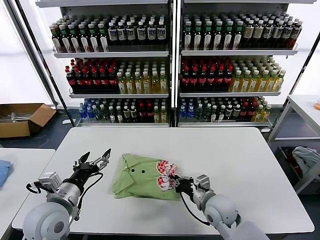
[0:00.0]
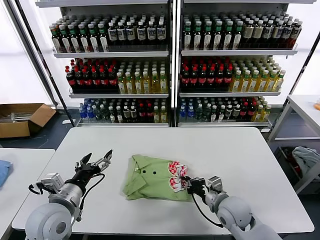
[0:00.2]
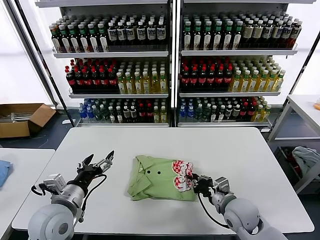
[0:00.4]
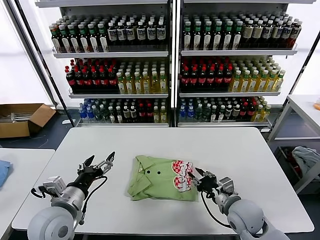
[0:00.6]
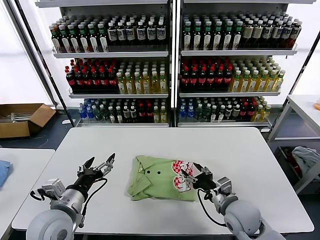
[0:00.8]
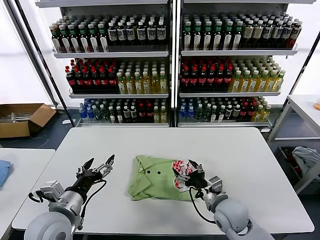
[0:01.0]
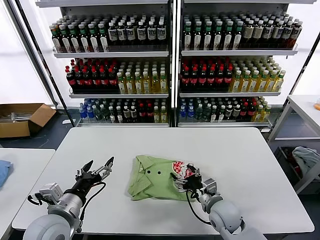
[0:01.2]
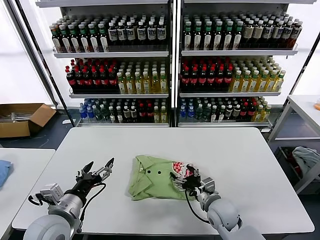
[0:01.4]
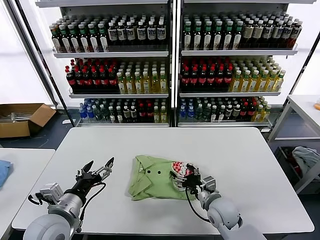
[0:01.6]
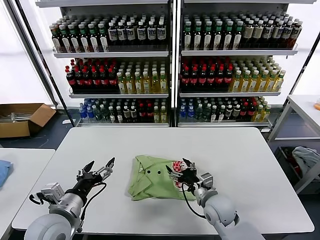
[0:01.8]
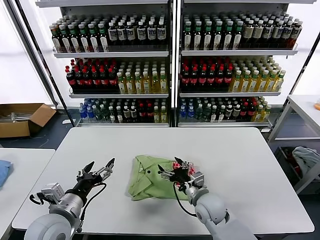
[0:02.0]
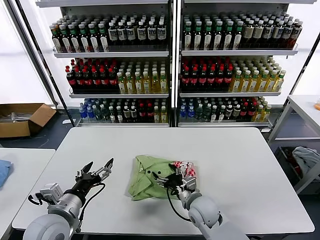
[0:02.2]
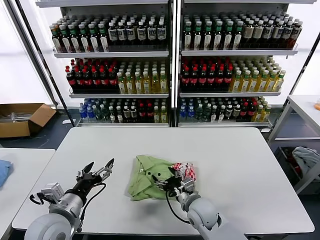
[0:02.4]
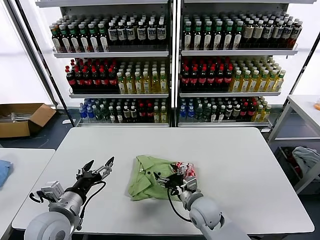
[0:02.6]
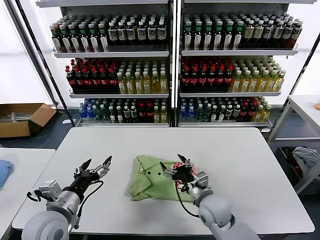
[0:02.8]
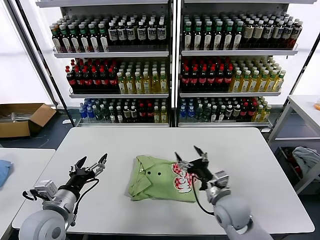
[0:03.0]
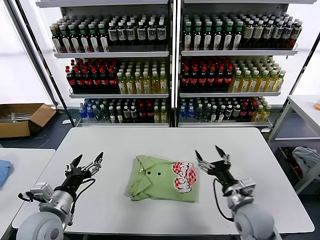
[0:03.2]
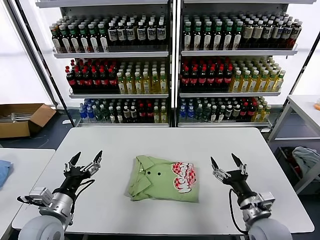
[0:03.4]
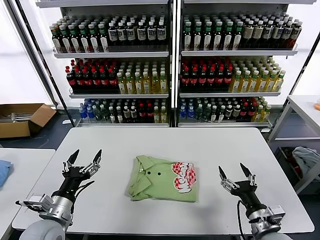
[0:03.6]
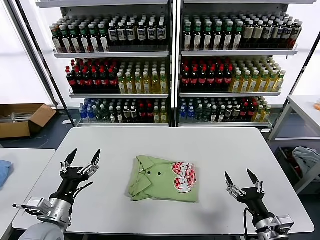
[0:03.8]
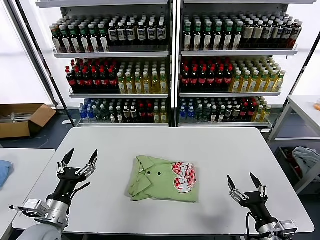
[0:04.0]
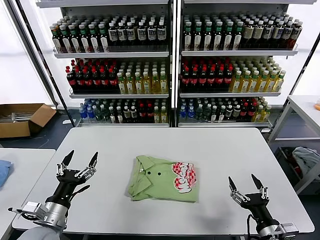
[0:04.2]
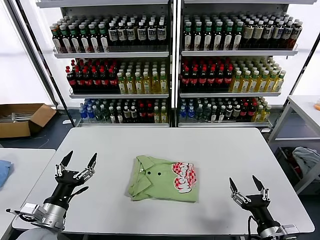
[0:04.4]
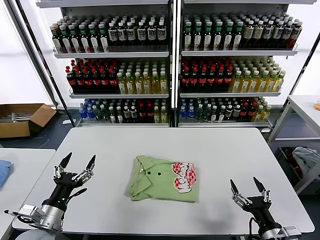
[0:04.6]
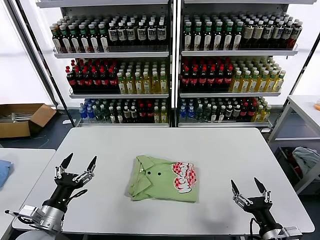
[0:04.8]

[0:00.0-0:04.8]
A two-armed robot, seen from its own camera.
Task of the whole recording: fold and organize the clothes.
Step, 0:00.0 to 0:02.6: Drag the clothes to the center of the table.
0:00.0 to 0:01.6: The right gripper opens up.
0:01.6 to 0:03.2: The right gripper goes some 5 cm upward.
0:03.2 to 0:04.8: The right gripper travels backward and to the right by about 15 cm. The left gripper changes place by approximately 5 cm.

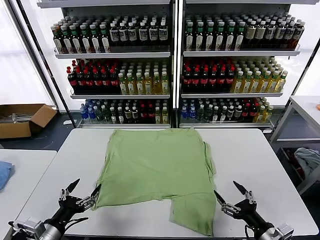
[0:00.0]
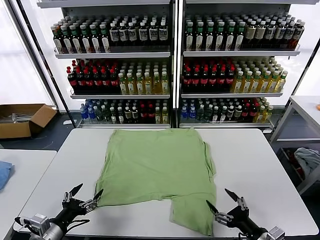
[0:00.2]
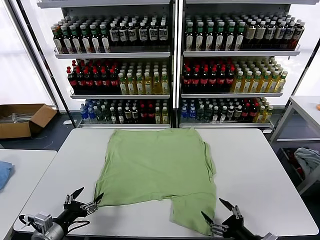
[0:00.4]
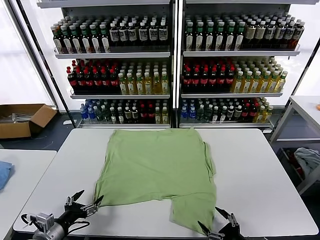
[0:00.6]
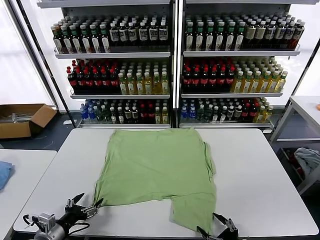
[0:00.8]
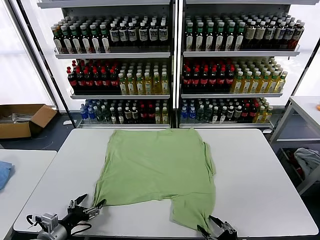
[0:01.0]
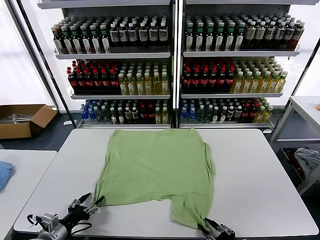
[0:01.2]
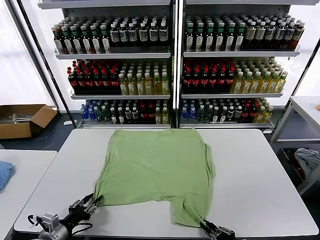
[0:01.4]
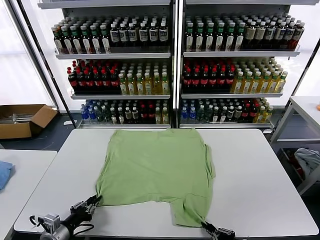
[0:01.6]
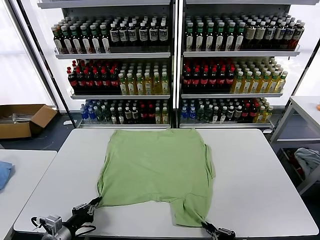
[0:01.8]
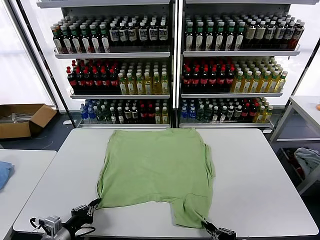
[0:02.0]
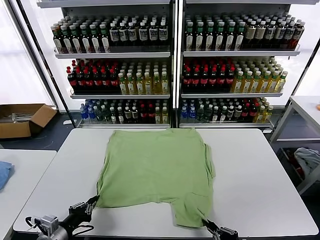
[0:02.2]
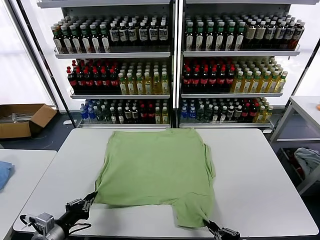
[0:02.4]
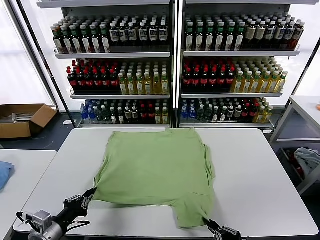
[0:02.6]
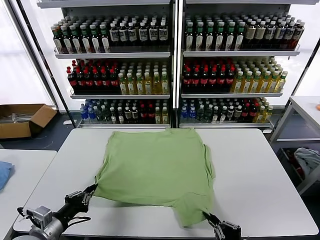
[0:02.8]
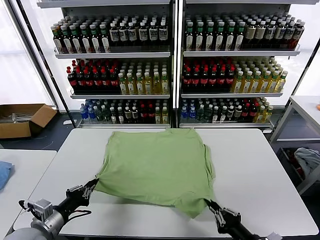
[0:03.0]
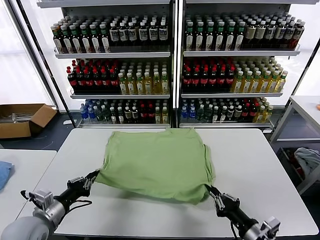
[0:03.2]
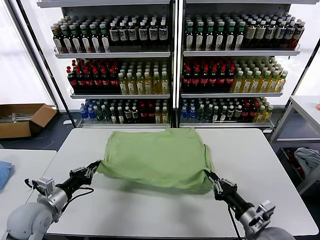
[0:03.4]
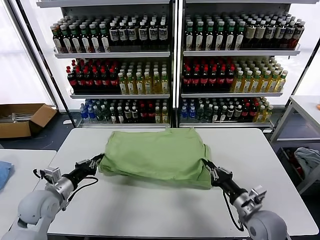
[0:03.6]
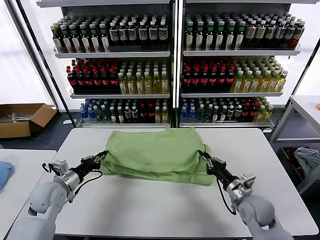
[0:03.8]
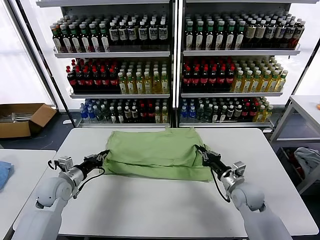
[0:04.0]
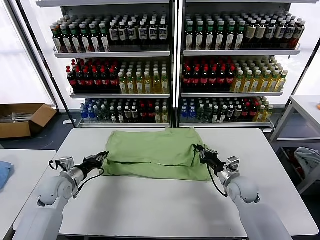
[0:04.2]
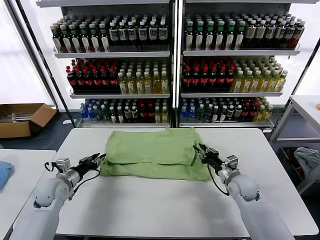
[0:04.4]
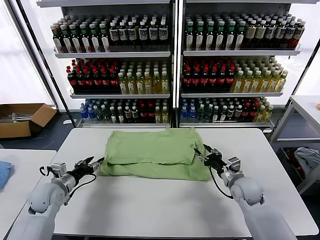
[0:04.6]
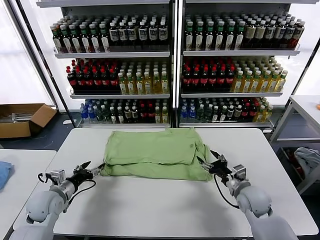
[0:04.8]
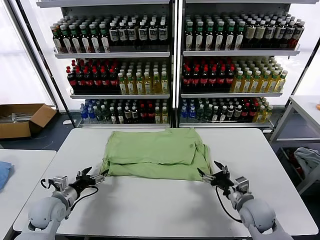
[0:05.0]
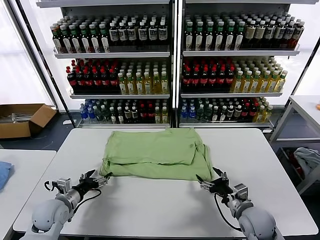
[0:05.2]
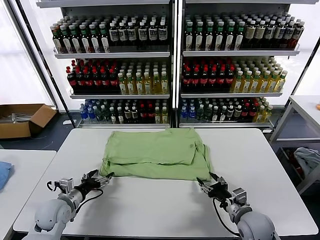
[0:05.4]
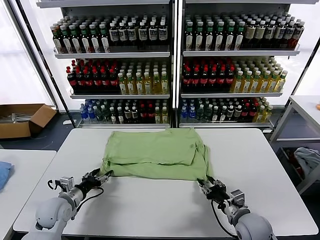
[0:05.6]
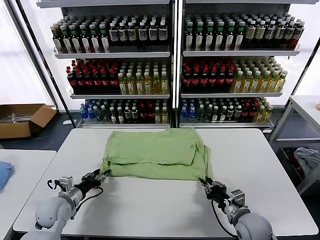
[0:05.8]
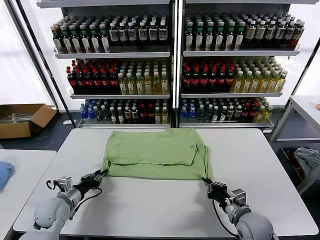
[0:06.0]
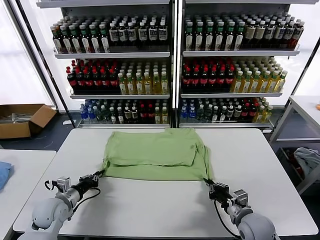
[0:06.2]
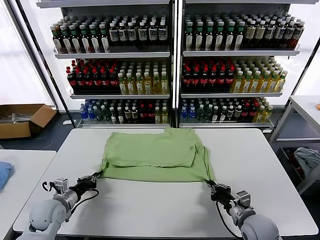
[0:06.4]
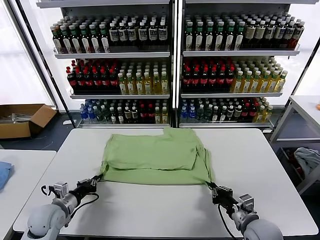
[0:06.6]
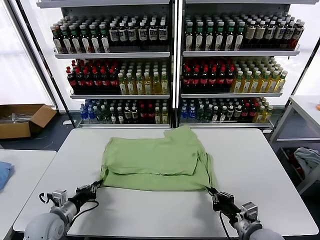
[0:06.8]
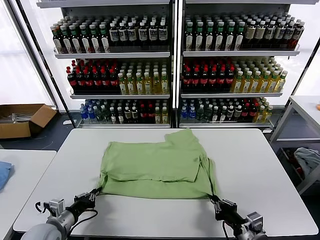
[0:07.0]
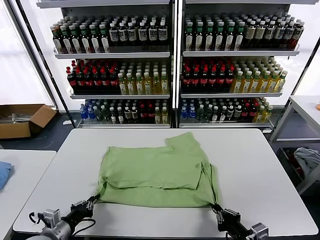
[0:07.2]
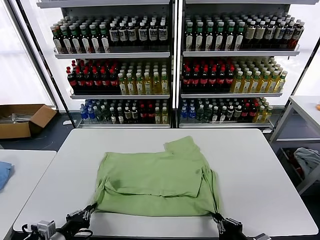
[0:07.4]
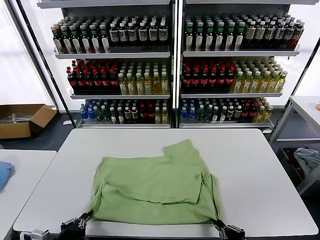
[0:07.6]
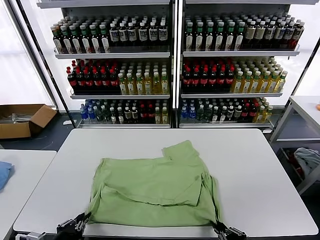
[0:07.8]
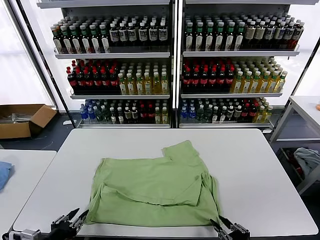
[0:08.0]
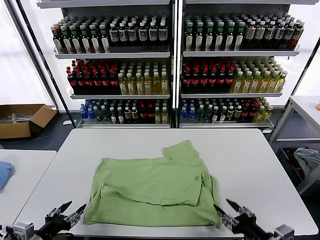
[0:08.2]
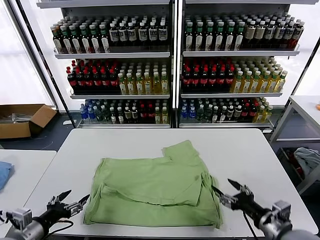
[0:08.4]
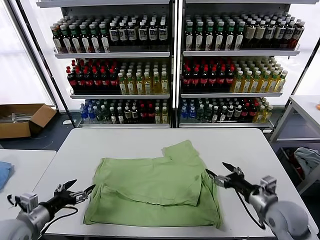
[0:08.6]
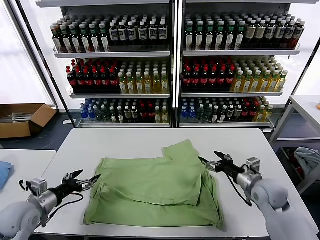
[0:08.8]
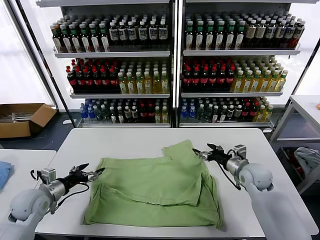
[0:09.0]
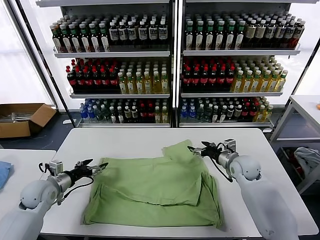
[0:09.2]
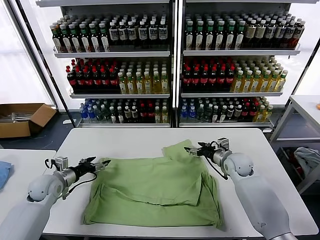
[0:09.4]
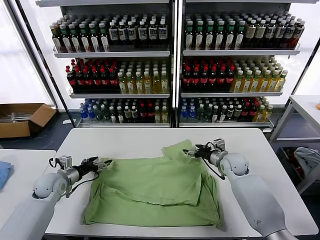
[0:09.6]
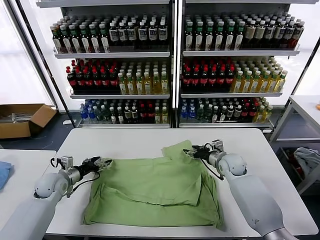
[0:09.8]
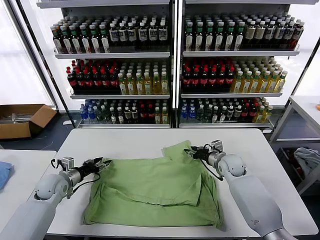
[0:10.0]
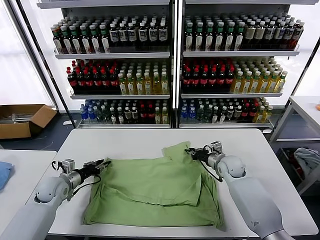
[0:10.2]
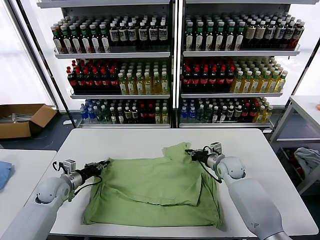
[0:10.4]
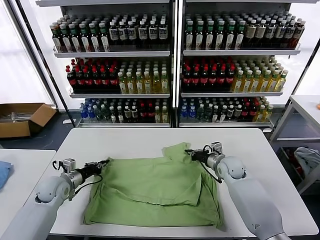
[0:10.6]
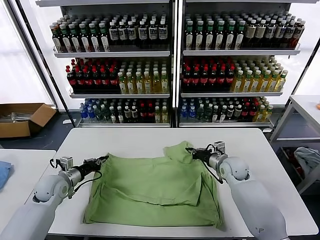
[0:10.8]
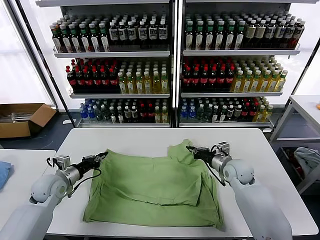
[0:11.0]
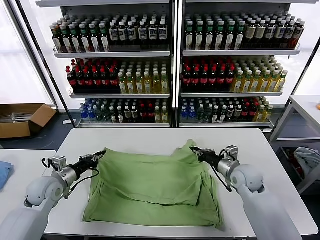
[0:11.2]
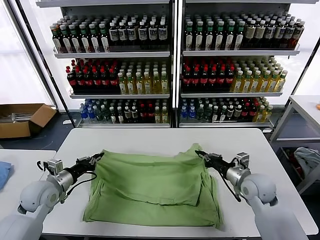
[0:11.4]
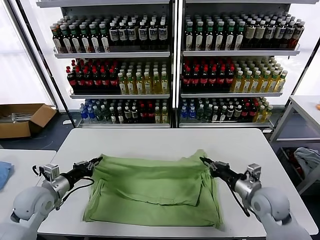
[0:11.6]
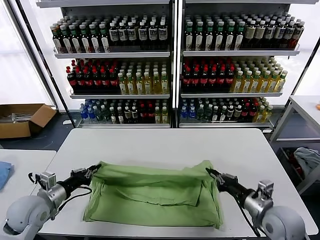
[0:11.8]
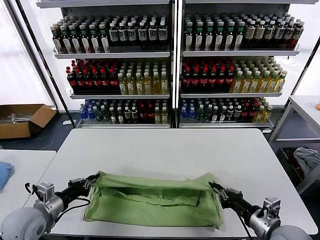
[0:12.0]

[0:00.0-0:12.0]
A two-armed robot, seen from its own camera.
Task of the whole recording: fold and organize the clothes.
Step, 0:00.0 to 0:01.6: use both grippers simultaneously to clamp the lower edge of the clothing fabric.
Step, 0:02.0 to 0:04.4: use both grippers to drag the lower edge of the fabric forward and fold it over the upper edge.
Step, 0:04.8 to 0:08.0: Drag the clothes downward with both gripper.
Step, 0:08.2 to 0:10.4: use both grippers simultaneously to clamp the upper edge of the clothing fabric.
0:01.6 to 0:03.0: The right gripper goes some 5 cm upward. The left gripper heads upward, covering approximately 10 cm.
0:03.0 to 0:04.4: Both grippers travel together forward, approximately 20 cm. The right gripper opens up.
0:04.4 to 0:06.0: The left gripper travels backward by some 5 cm, and opens, then closes once more. Meanwhile the right gripper shifts approximately 10 cm backward, and closes its fingers.
0:06.0 to 0:07.6: Both grippers travel together backward, approximately 20 cm.
0:07.6 to 0:09.0: The left gripper goes approximately 20 cm forward and to the left, and opens its fingers, while the right gripper goes roughly 35 cm forward, and opens its fingers.
0:09.0 to 0:10.4: The right gripper shifts by approximately 5 cm, and closes its fingers. Meanwhile the left gripper goes some 10 cm forward and downward, and closes its fingers.
0:10.4 to 0:12.0: The left gripper heads backward and upward, covering some 15 cm. The right gripper goes about 30 cm backward.

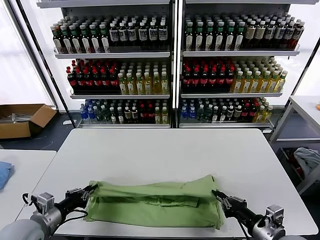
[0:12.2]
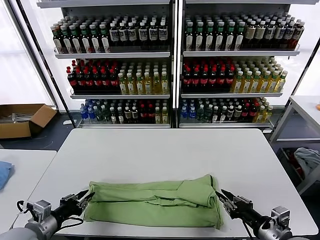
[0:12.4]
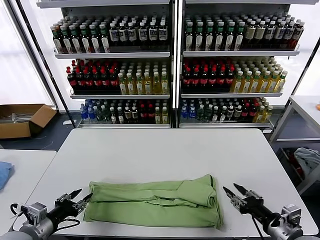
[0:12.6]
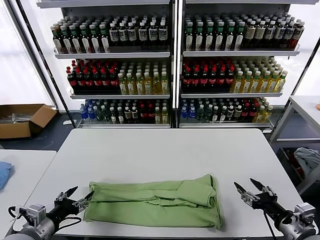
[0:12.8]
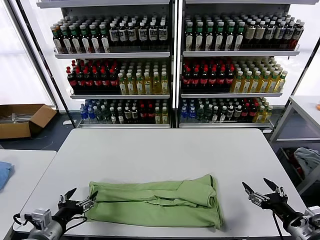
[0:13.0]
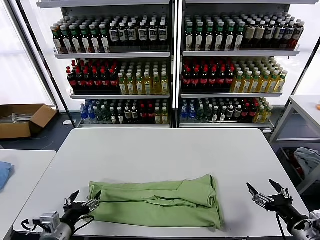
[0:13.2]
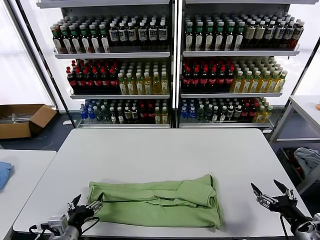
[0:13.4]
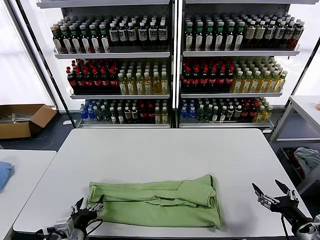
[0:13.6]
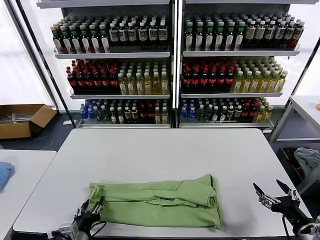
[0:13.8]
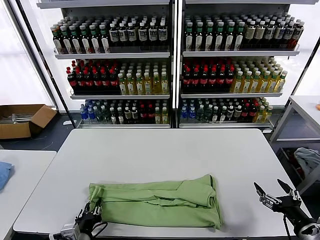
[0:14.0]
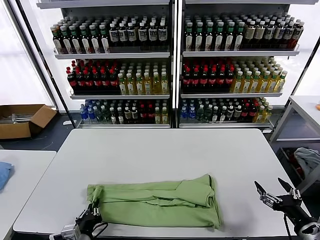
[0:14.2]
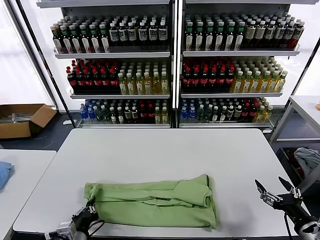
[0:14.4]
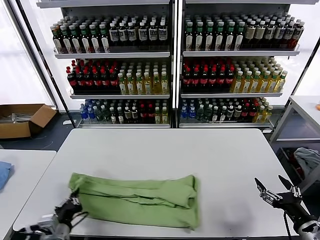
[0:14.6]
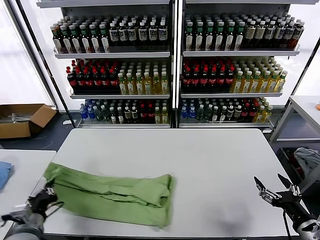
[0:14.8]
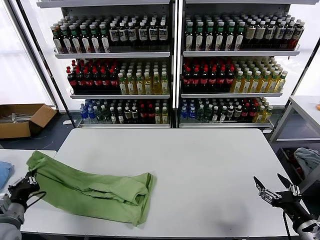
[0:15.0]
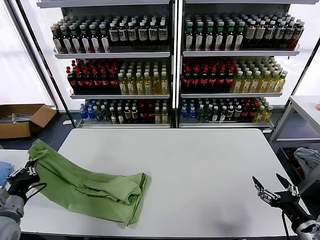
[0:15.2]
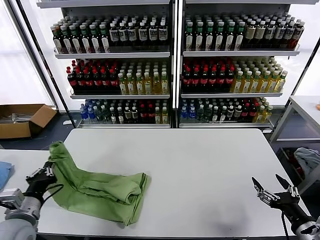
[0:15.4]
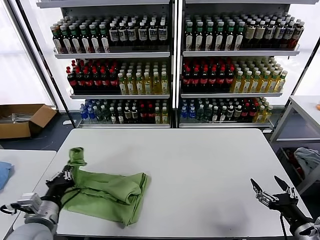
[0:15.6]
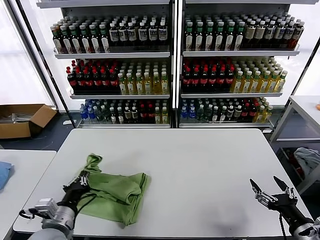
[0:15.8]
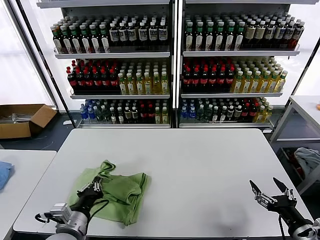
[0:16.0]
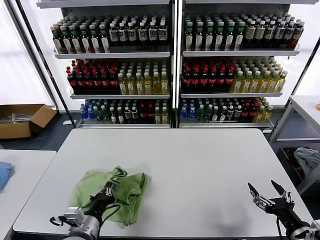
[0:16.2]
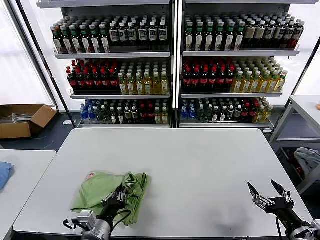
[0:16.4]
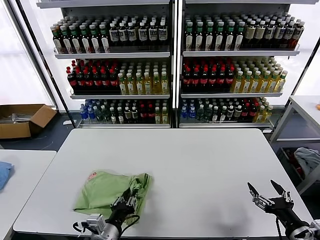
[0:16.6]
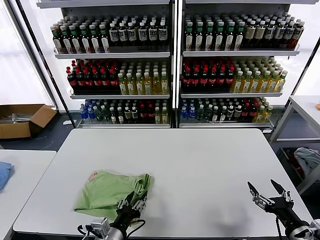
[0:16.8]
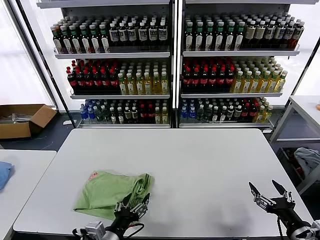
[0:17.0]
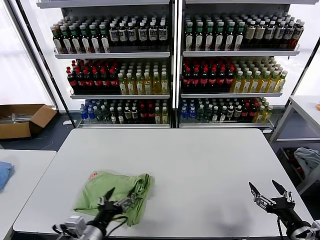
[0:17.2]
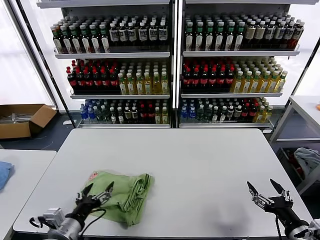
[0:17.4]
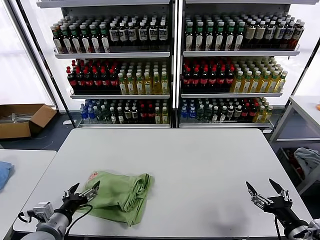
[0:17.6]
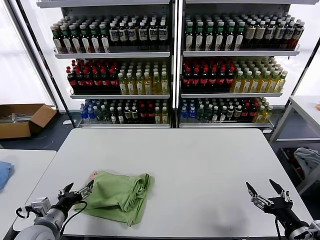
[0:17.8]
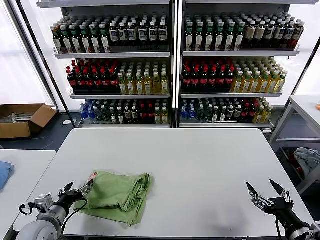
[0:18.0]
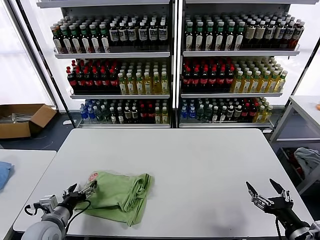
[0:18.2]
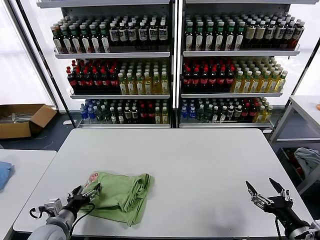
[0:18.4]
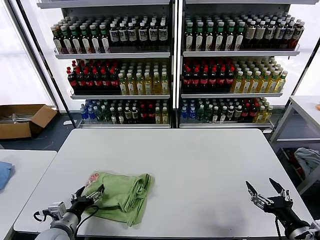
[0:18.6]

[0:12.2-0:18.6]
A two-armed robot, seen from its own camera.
Task of the whole recording: fold and organize the clothes.
Step, 0:12.8 to 0:14.2: use the left gripper to clamp the left edge of the fabric.
Step, 0:14.4 to 0:16.8: use the left gripper to drag the left edge of the fabric to the left and folds it over the right edge.
0:12.2 to 0:13.8: The right gripper is displaced to the right by roughly 10 cm, and opens its fingers. Meanwhile the left gripper goes about 15 cm to the right, downward and backward, and opens its fingers.
0:13.8 to 0:15.4: The left gripper moves to the left and upward, roughly 15 cm, and closes.
0:15.4 to 0:17.0: The left gripper moves to the right, roughly 20 cm, and opens its fingers.
0:17.0 to 0:18.6: The left gripper heads to the left and forward, covering about 15 cm.
